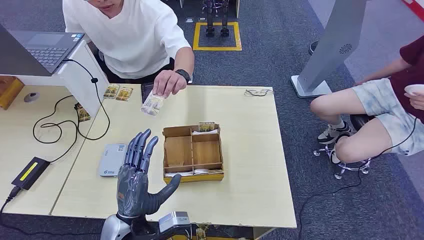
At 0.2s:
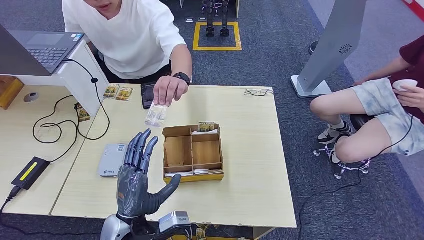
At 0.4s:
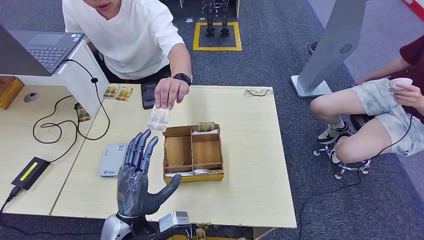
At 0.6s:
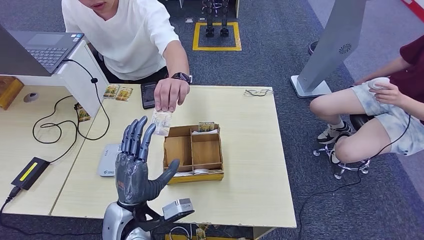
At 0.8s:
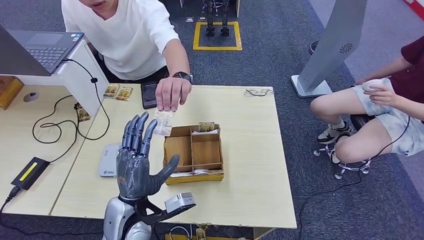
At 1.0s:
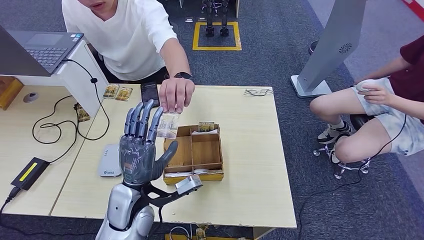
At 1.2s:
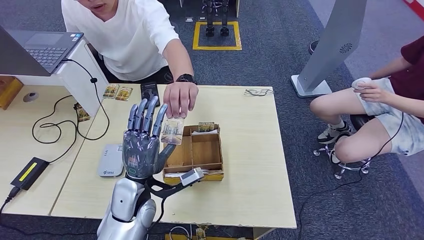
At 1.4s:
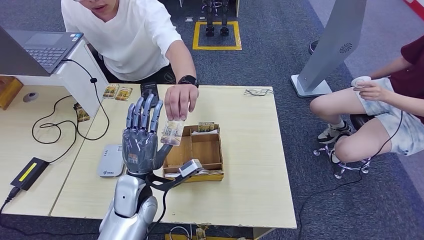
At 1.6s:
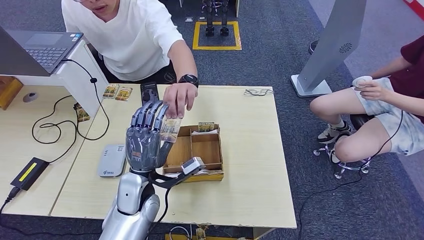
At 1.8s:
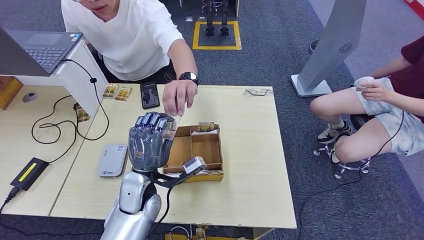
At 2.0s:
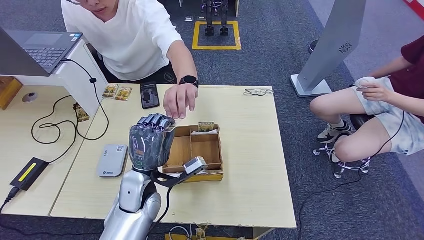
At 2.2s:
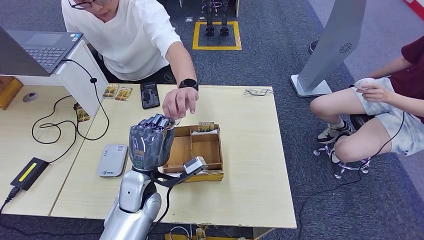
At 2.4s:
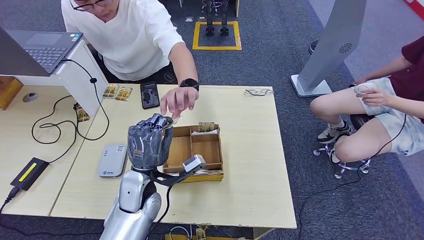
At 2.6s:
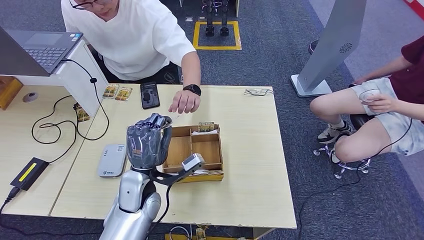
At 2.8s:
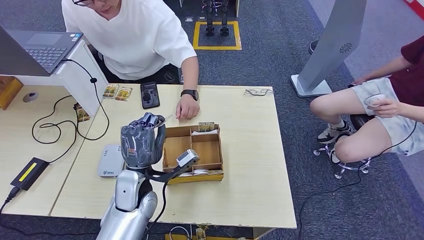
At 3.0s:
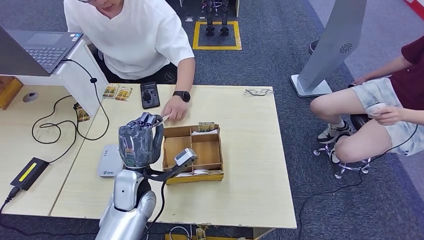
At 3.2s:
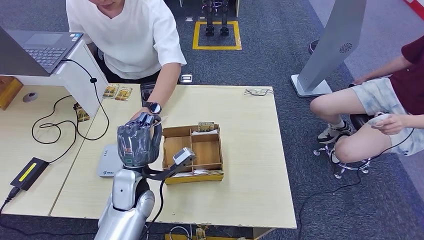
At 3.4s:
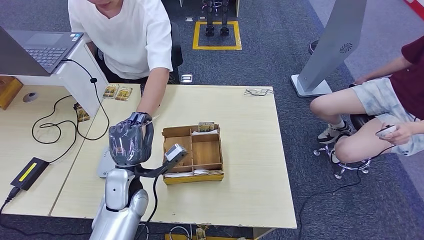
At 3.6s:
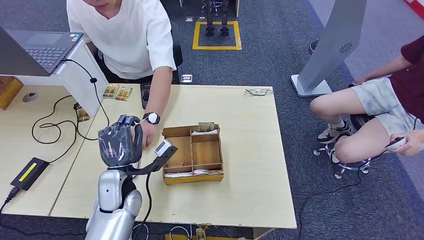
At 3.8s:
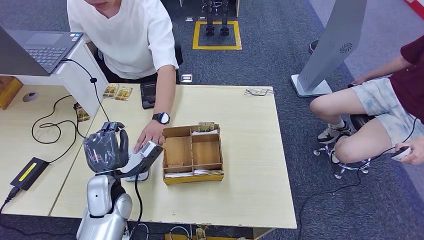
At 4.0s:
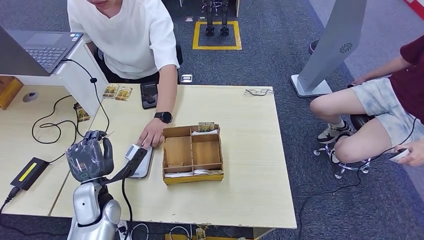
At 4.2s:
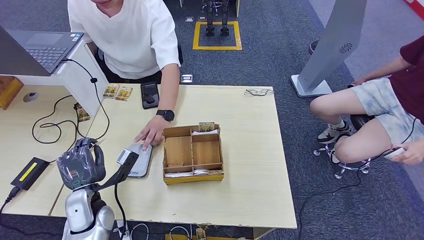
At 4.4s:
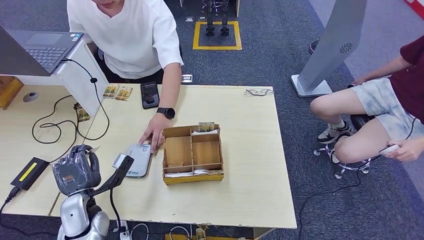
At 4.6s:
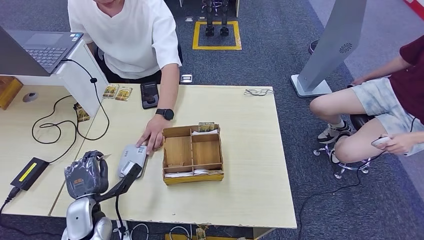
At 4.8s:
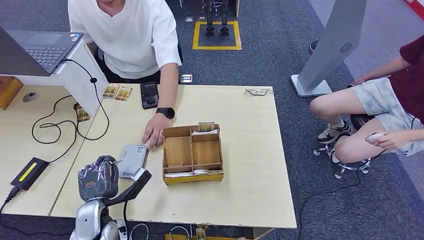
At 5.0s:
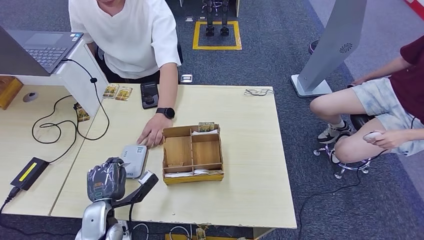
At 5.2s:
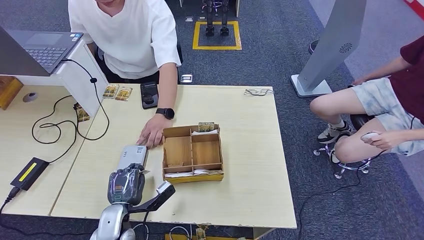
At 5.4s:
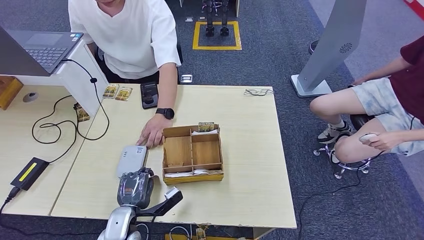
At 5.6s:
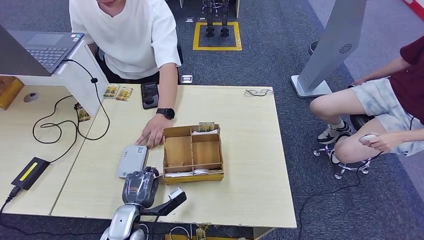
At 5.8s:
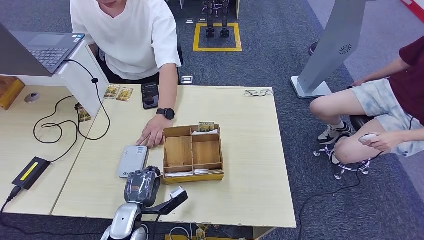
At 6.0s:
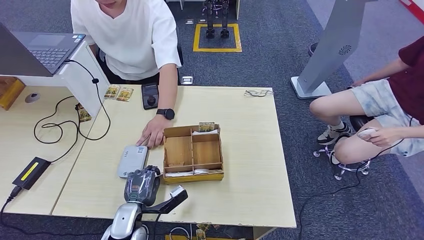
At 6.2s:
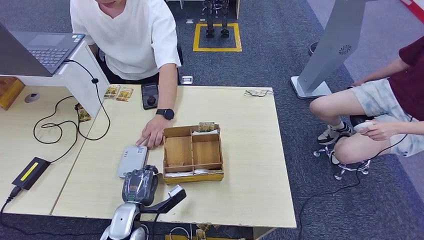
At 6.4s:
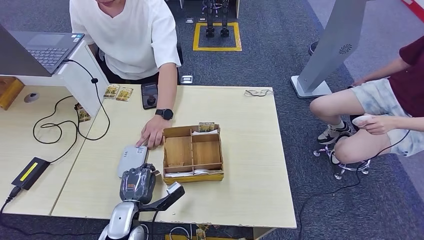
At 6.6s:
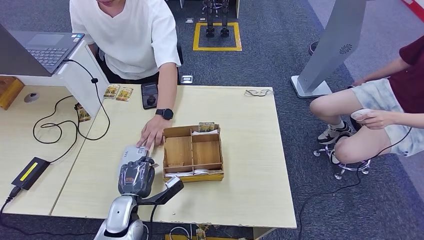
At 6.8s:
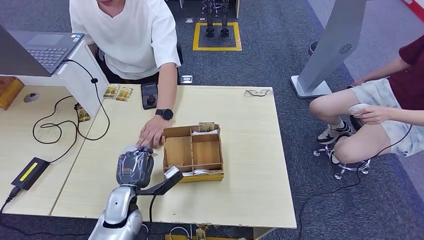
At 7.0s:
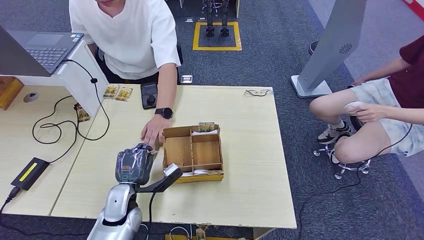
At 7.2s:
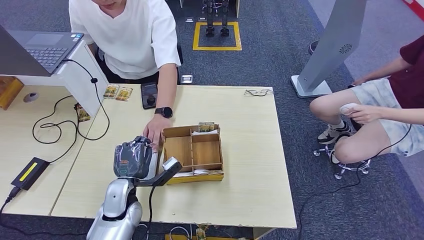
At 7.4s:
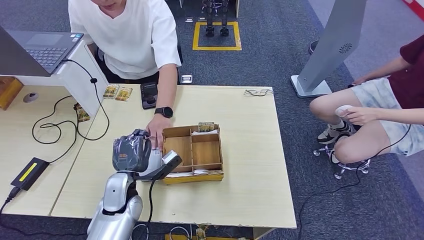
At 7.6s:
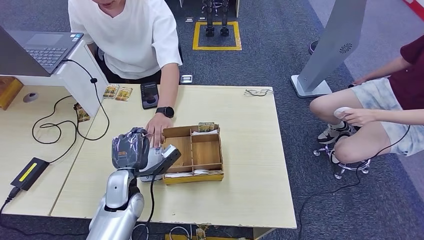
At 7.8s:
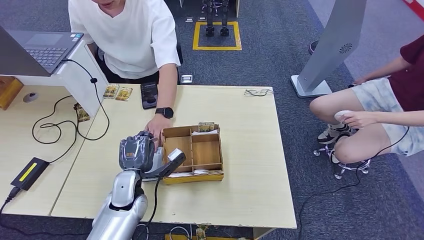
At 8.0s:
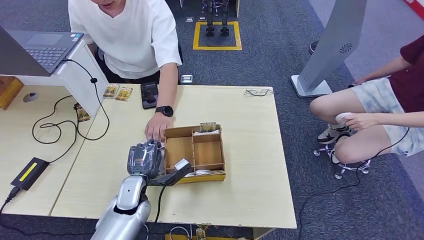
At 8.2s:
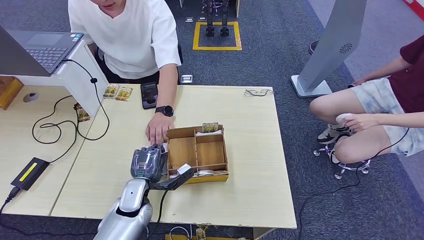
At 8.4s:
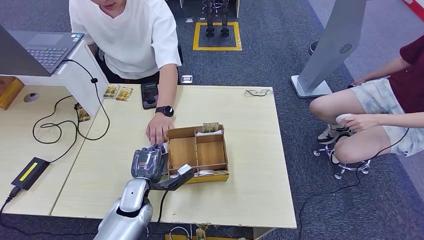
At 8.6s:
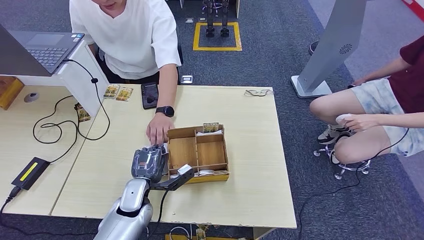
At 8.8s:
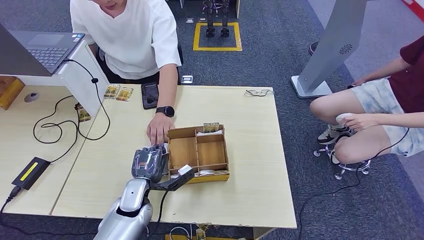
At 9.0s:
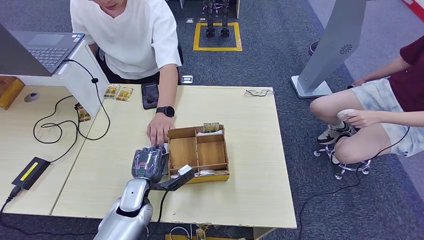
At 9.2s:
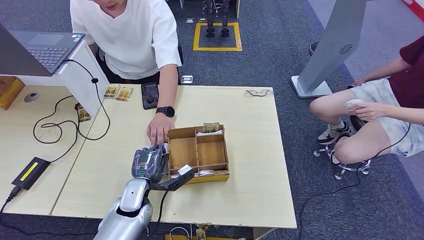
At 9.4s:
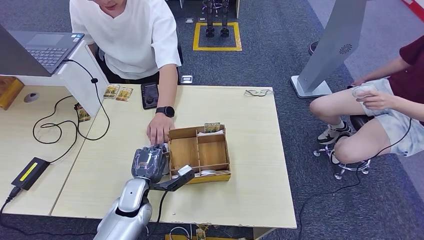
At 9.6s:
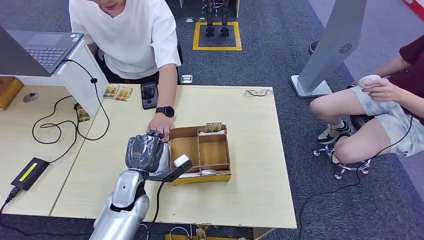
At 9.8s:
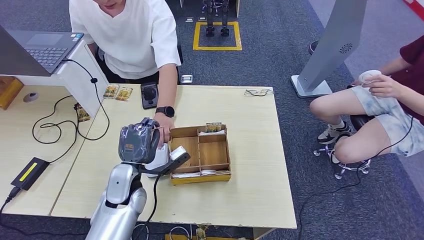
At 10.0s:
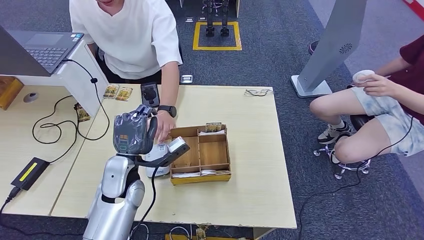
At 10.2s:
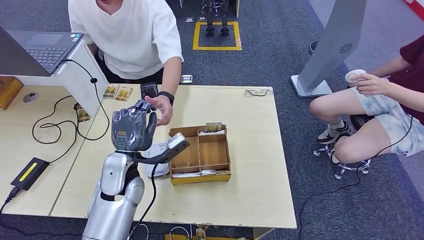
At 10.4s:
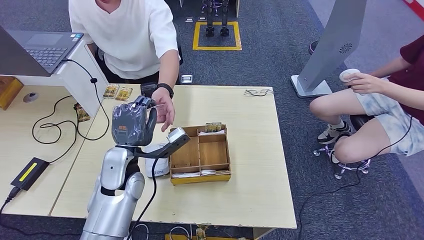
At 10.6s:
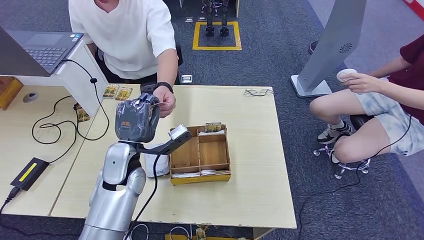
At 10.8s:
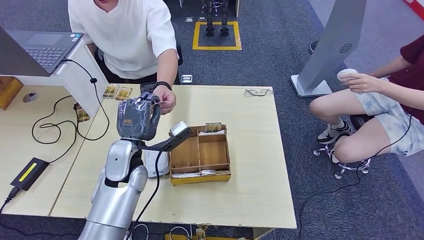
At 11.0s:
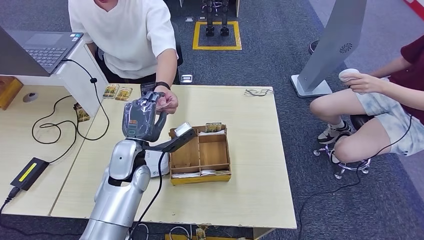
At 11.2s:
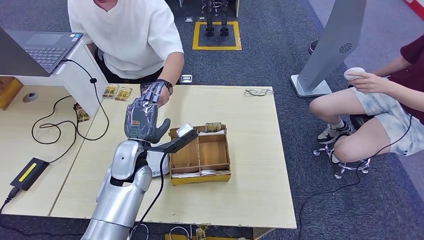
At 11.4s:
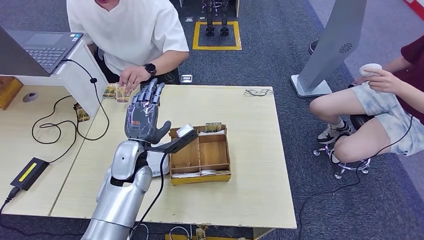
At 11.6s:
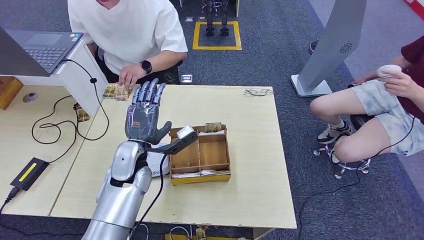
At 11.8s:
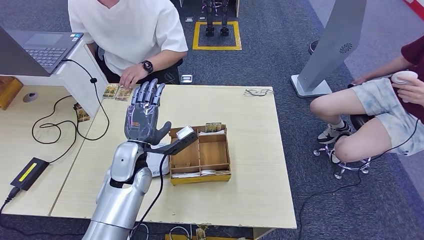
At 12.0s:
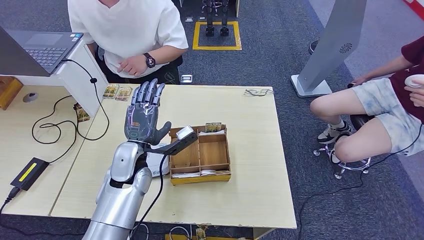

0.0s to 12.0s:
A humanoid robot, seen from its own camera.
Step, 0.0s to 2.6s: Take the ID card from the person's hand.
Step, 2.8s to 7.8s: Place the ID card on the card reader.
1.6s to 3.0s: The hands stay close to where they were, moving slightly.
3.0s to 4.4s: The left hand moves to the left and downward, approximately 15 cm.
4.4s to 6.0s: The left hand shifts roughly 10 cm to the right and downward.
6.0s to 7.6s: The left hand moves upward and forward, about 10 cm.
7.6s to 9.0s: The left hand moves some 5 cm.
9.0s to 10.4s: The left hand heads upward, covering some 15 cm.
10.4s to 12.0s: The hands move only a little.

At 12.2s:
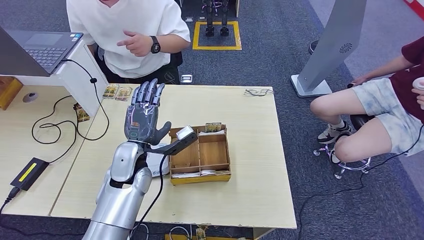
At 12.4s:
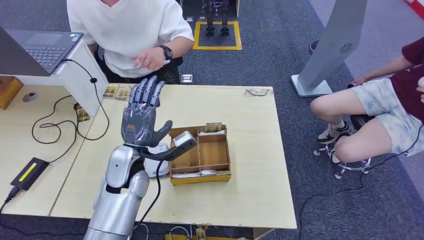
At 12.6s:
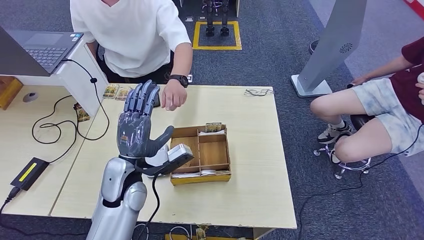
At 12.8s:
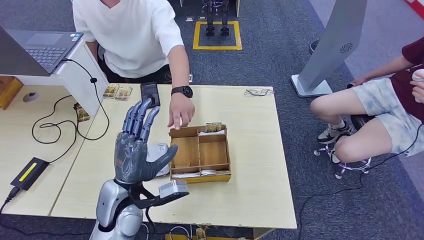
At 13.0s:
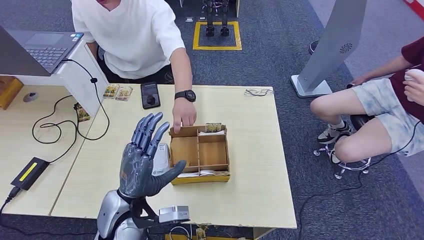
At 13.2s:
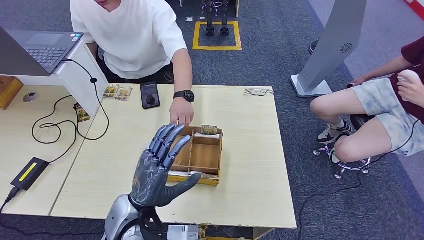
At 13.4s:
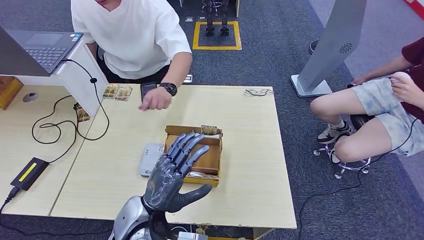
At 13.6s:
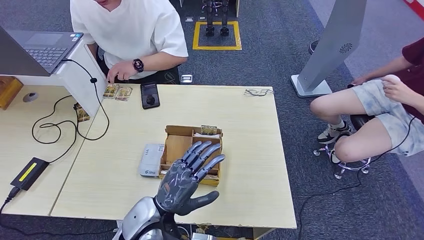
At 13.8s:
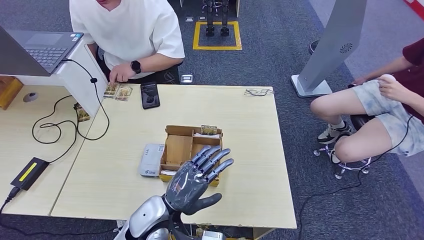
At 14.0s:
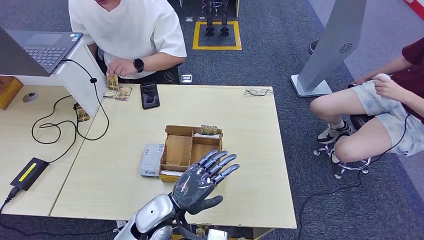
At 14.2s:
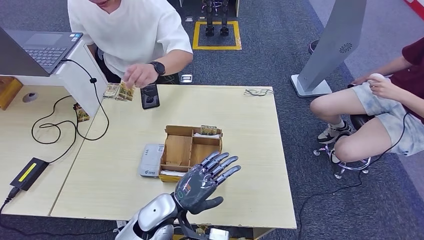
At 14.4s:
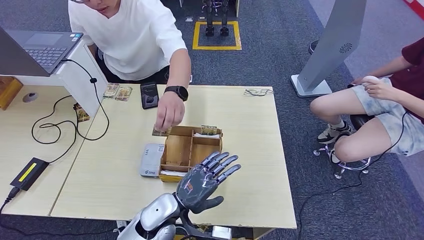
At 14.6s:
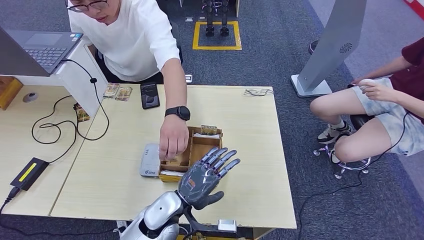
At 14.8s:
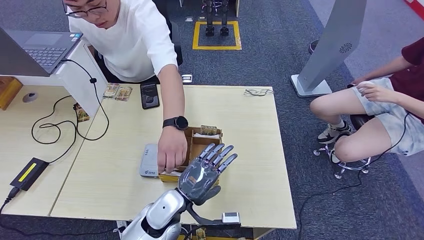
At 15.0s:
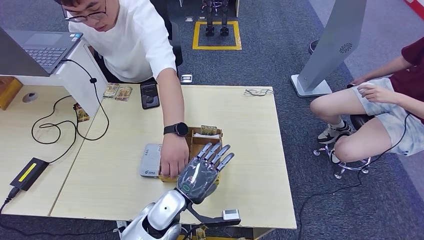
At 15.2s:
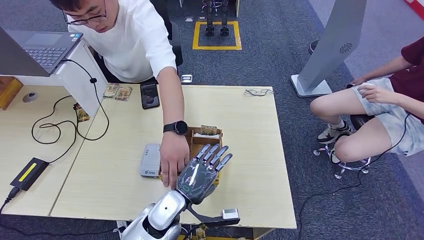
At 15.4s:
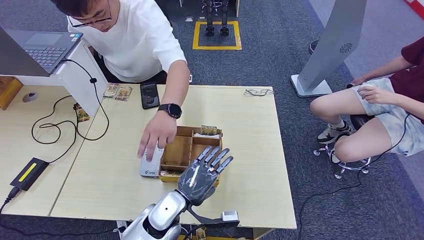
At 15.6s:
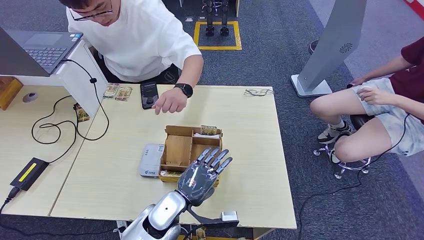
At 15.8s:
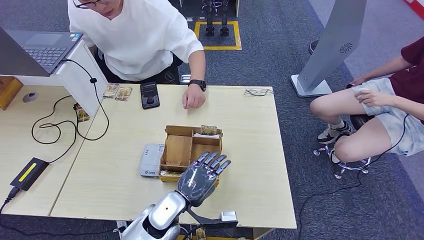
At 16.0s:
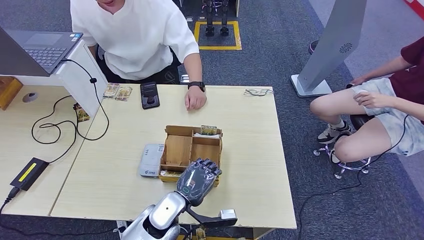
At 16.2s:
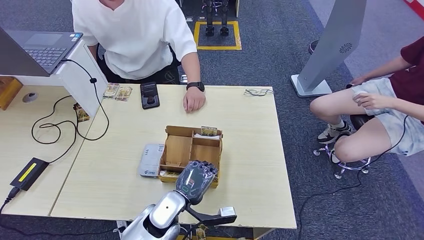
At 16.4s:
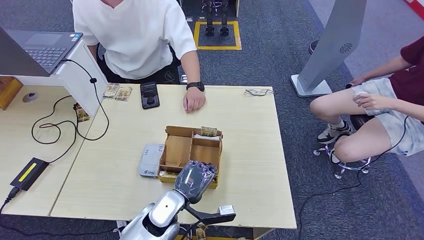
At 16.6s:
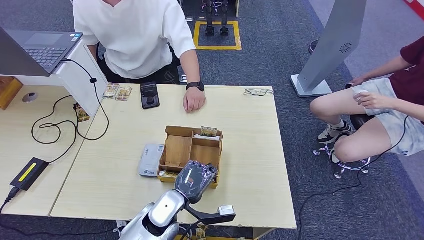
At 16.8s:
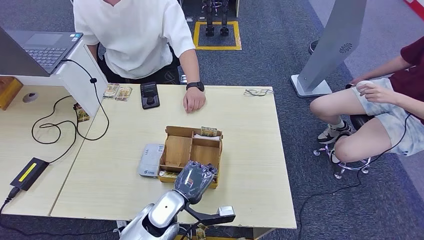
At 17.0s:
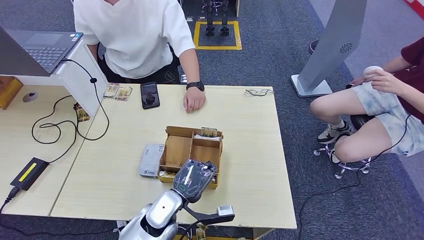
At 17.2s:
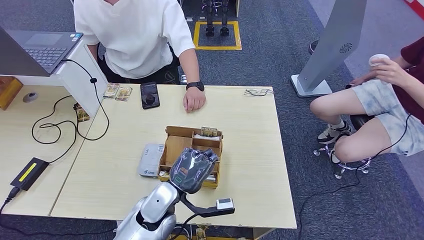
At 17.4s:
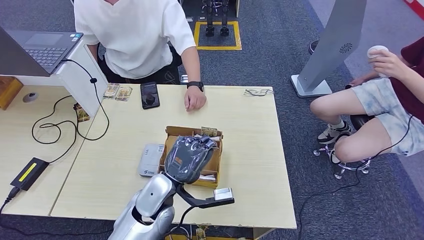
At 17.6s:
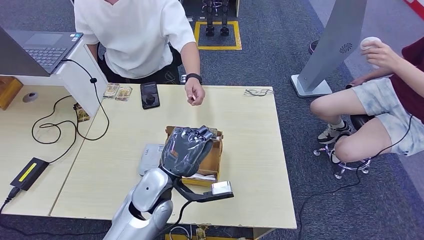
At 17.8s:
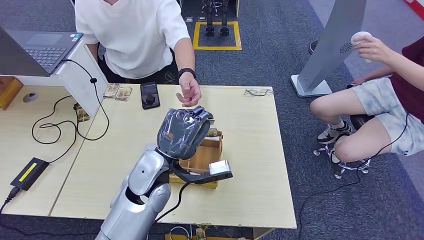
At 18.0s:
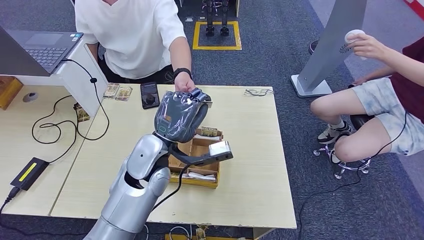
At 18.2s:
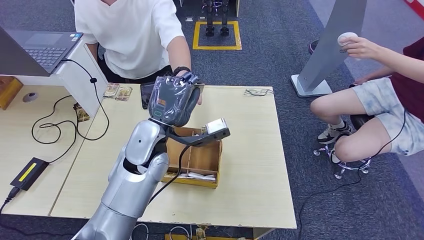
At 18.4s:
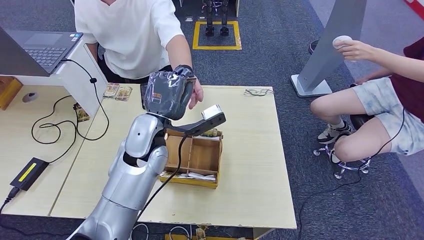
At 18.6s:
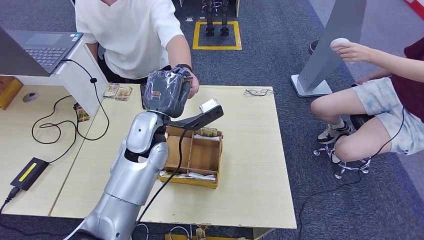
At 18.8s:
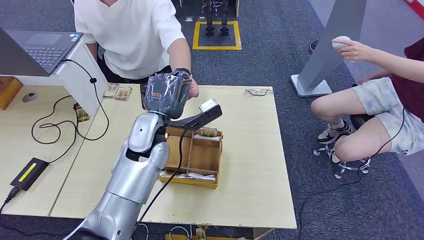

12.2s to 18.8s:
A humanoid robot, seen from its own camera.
Step, 12.2s to 14.8s: Hand the ID card to the person.
12.2s to 13.8s: The left hand travels backward, to the right and downward by about 15 cm.
15.4s to 17.2s: The hands stay close to where they were, moving slightly.
17.2s to 18.8s: The left hand heads upward and forward, covering about 15 cm.
